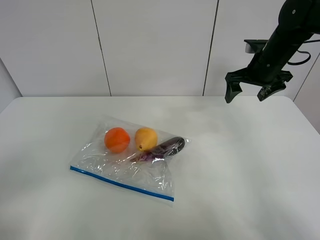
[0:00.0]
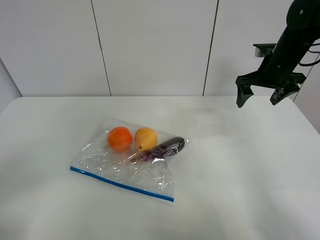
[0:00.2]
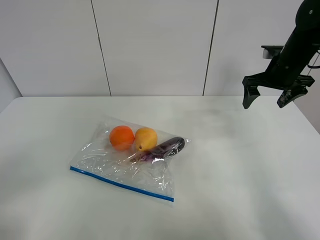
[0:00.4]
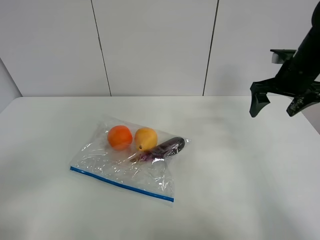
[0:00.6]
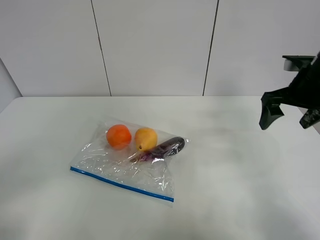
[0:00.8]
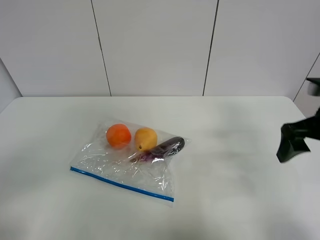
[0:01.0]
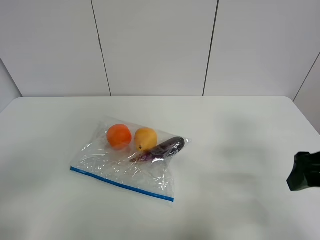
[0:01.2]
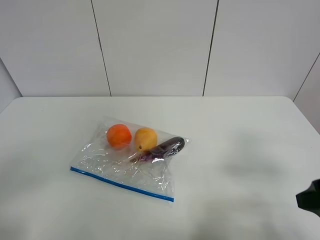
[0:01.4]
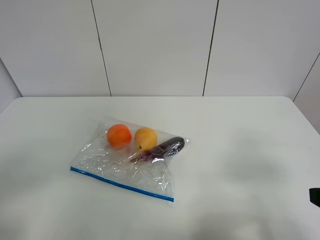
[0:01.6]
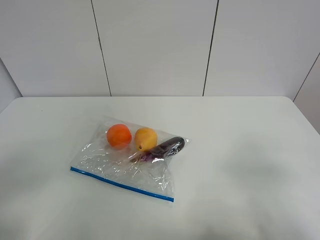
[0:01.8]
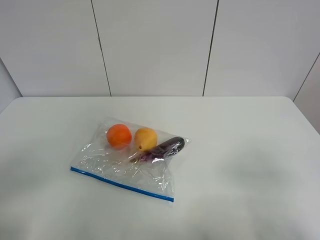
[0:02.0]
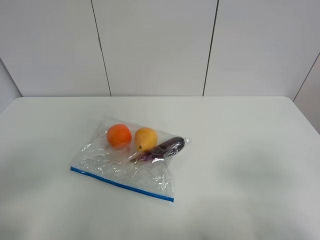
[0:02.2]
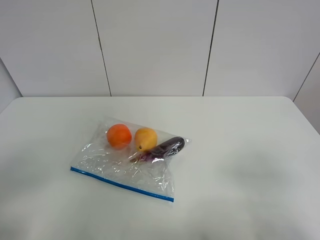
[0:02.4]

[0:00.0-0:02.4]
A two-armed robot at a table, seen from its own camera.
0:00.0 to 0:01.2: The right gripper travels backward by approximately 25 cm.
0:01.2 to 0:02.4: The right gripper goes approximately 15 cm backward.

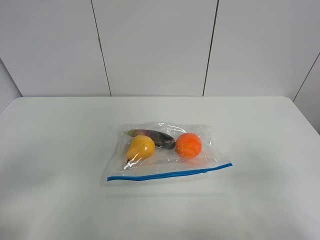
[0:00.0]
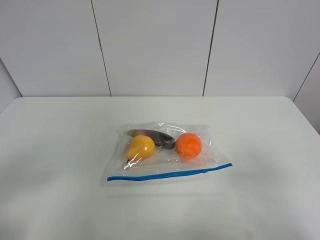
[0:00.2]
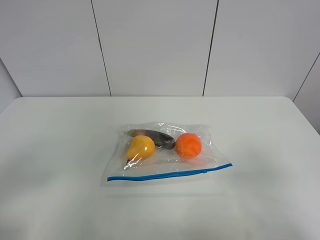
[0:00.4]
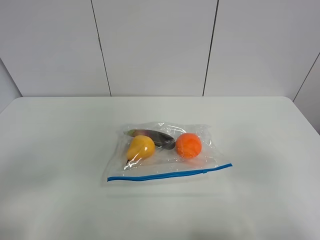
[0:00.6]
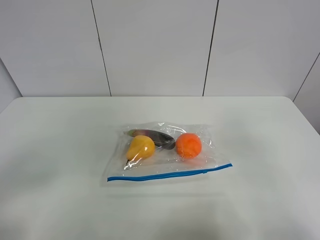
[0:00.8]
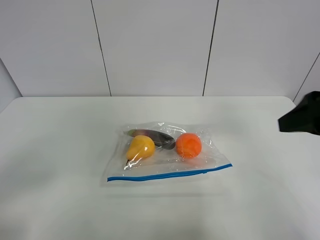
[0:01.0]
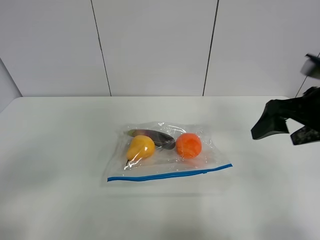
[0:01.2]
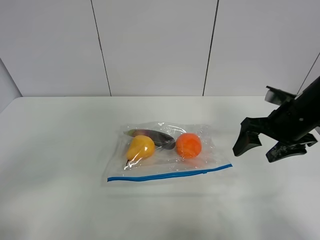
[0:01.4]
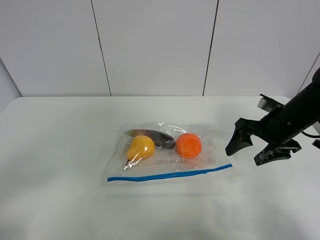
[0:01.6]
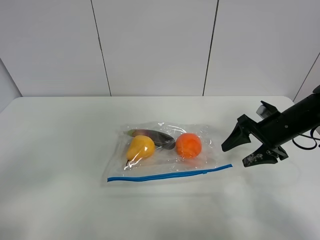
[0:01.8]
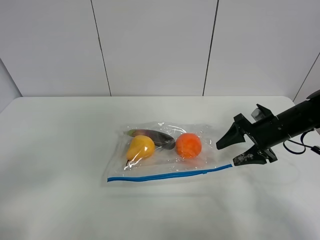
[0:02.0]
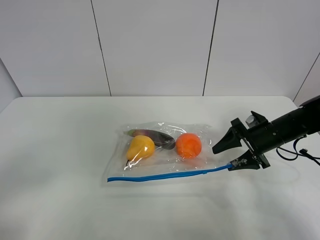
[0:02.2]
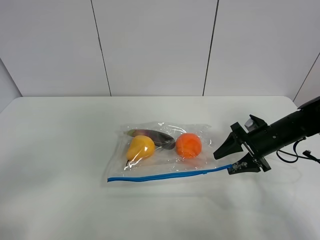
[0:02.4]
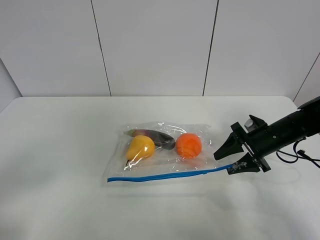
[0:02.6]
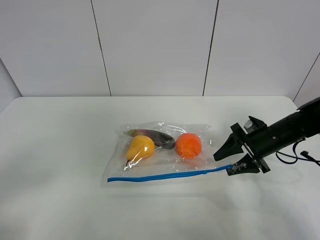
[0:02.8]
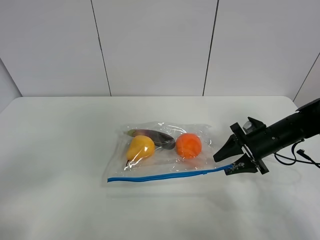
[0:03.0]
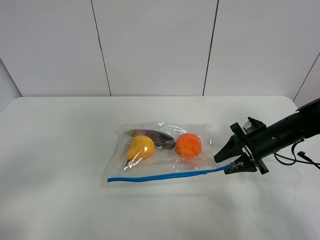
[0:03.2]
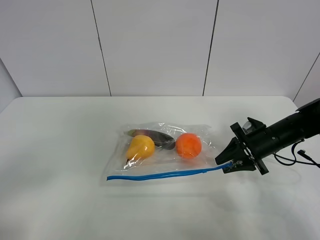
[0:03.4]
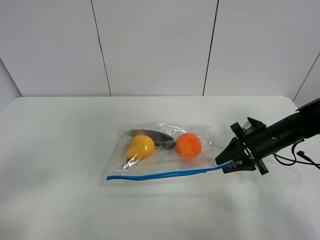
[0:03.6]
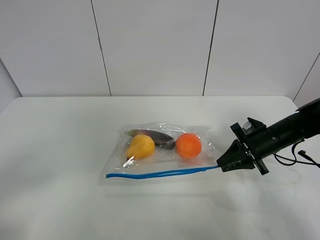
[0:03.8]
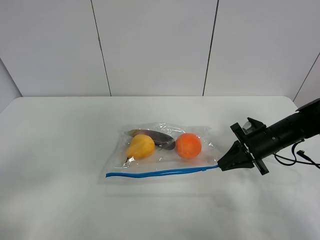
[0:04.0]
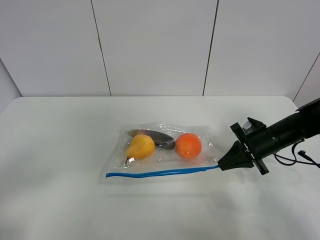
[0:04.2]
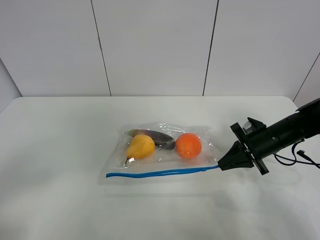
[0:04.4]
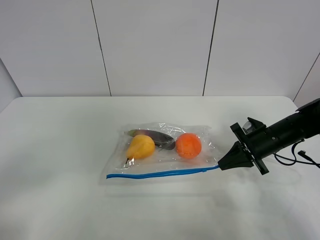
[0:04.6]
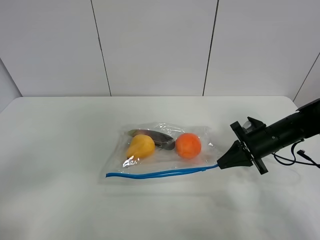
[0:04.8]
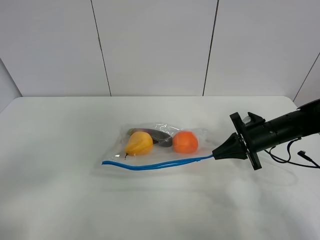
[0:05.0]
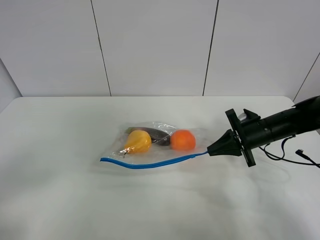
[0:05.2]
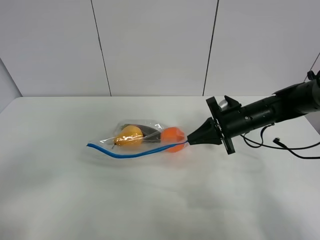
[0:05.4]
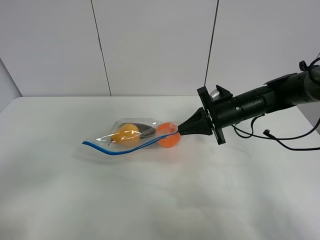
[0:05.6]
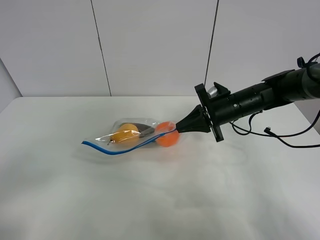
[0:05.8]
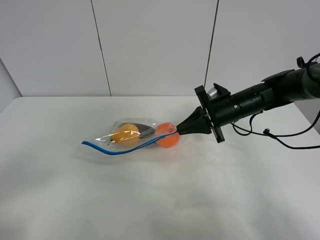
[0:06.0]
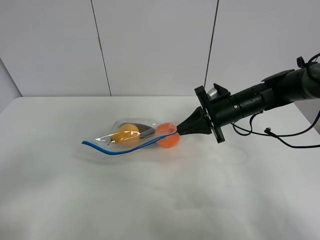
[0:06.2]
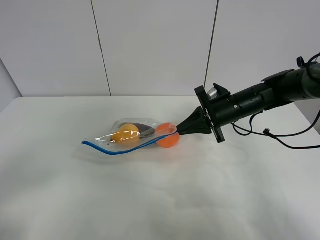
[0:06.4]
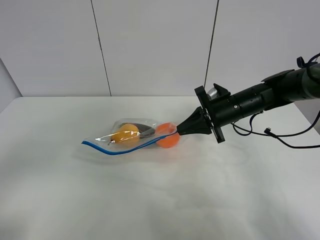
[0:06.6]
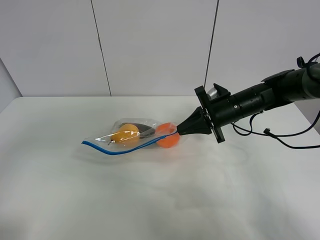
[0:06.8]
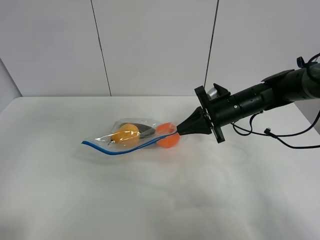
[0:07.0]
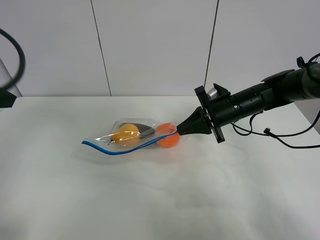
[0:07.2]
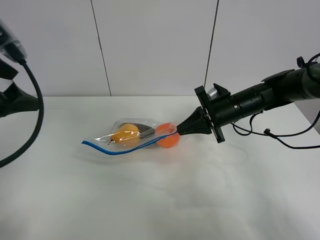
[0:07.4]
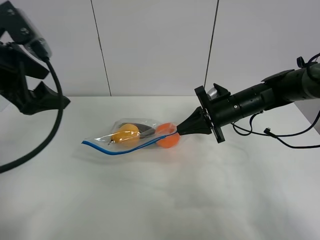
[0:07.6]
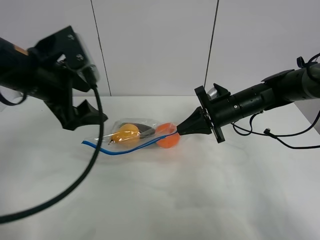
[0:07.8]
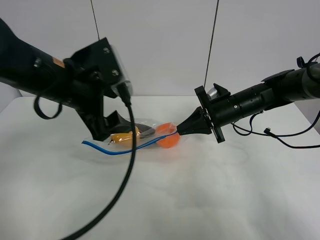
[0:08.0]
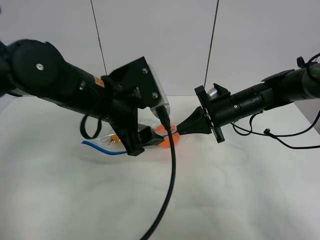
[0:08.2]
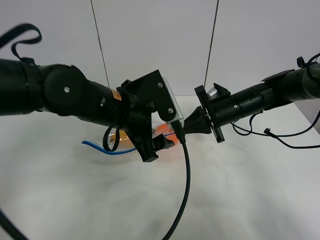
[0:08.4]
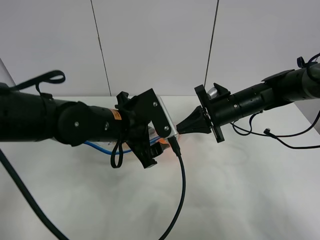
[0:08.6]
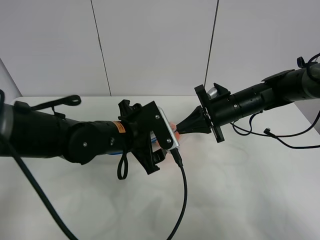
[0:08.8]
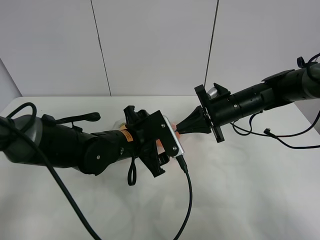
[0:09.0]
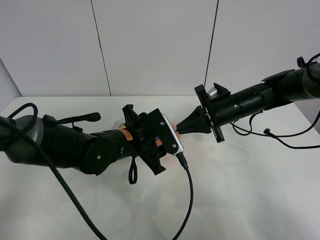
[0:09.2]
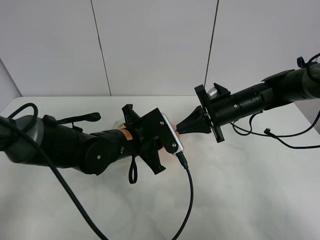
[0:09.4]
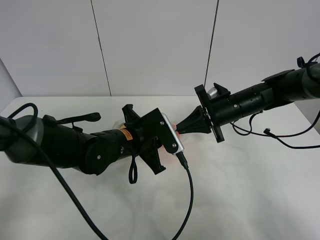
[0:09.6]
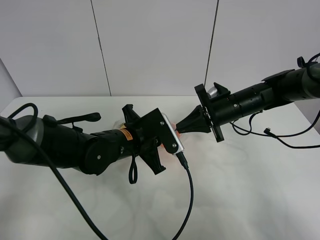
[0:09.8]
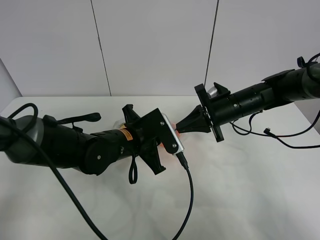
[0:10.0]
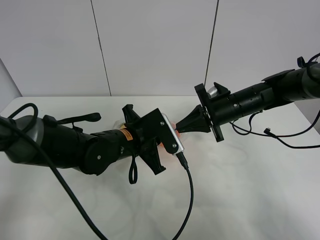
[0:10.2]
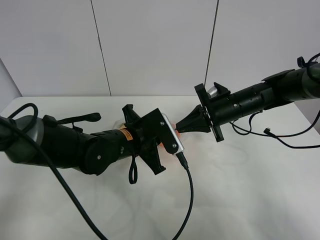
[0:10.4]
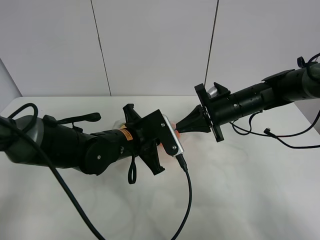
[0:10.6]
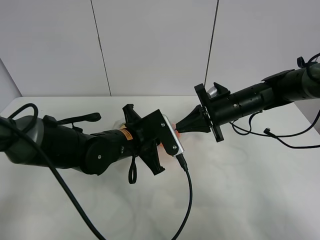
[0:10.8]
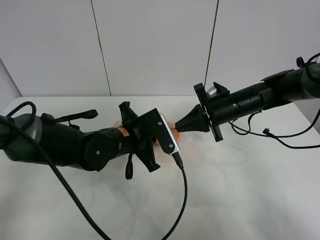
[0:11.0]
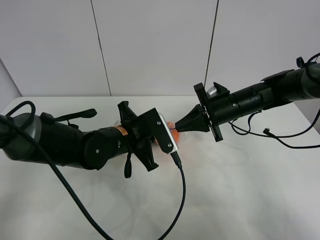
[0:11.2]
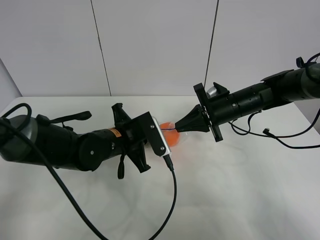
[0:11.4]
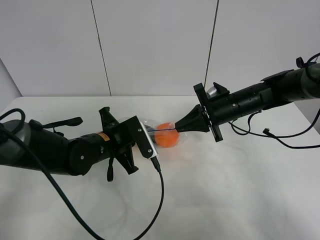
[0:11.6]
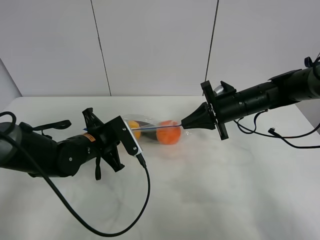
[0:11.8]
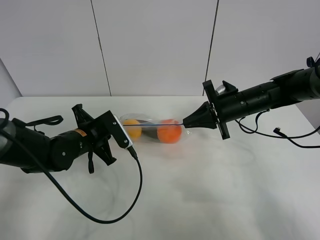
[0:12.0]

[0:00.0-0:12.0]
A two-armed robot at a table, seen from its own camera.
Step, 0:00.0 to 0:04.0: Grasp the fruit bag with right gripper.
Step, 0:04.2 to 0:06.0: Lift the fruit bag with your right gripper.
0:00.0 to 0:01.6: The right gripper is displaced forward by roughly 30 cm.
0:01.6 to 0:03.0: The right gripper travels downward by some 10 cm.
0:03.0 to 0:04.4: The right gripper closes its fingers.
0:04.4 to 0:06.0: The right gripper heads to the left and upward, covering roughly 10 cm.
0:06.0 to 0:07.6: The left gripper shifts roughly 25 cm forward.
0:07.6 to 0:09.0: The left gripper moves downward and to the right, about 25 cm.
0:09.0 to 0:10.4: The left gripper closes.
0:10.4 to 0:12.0: The left gripper is displaced to the left by roughly 10 cm.

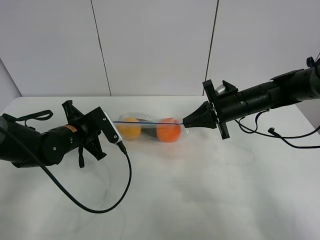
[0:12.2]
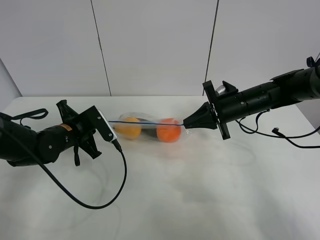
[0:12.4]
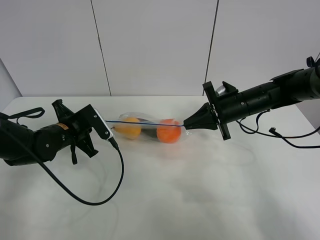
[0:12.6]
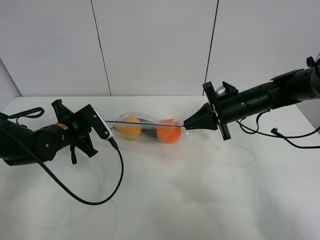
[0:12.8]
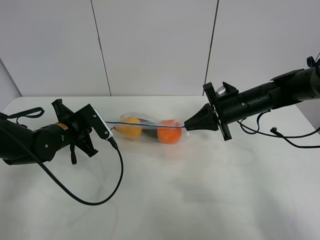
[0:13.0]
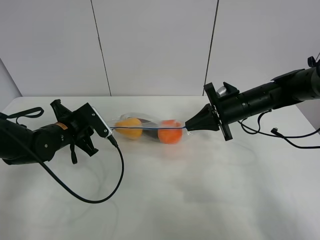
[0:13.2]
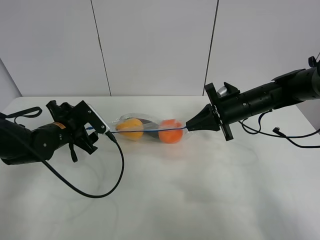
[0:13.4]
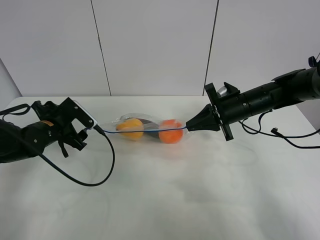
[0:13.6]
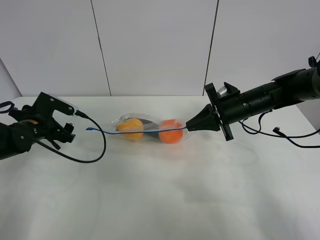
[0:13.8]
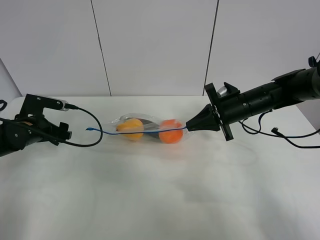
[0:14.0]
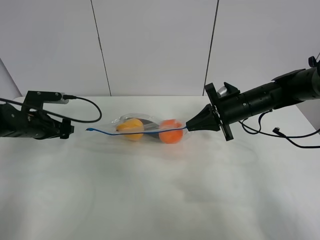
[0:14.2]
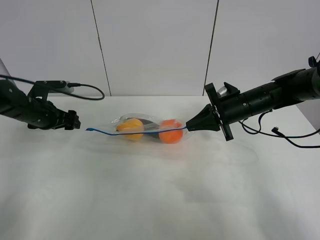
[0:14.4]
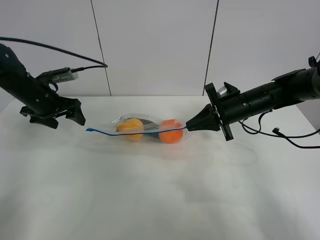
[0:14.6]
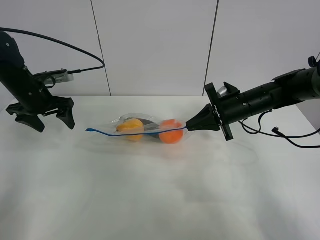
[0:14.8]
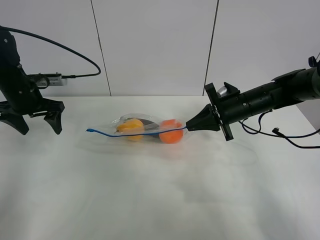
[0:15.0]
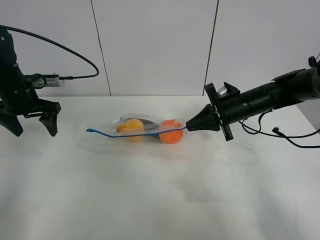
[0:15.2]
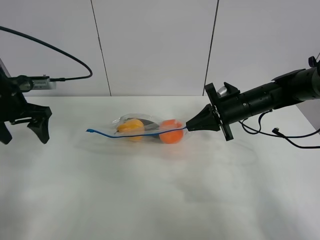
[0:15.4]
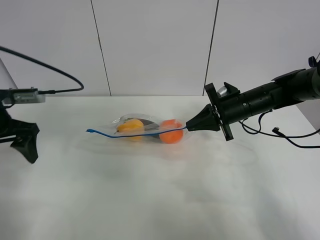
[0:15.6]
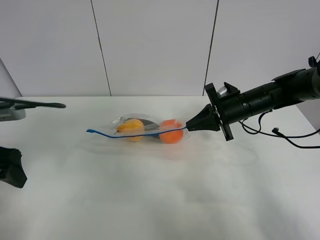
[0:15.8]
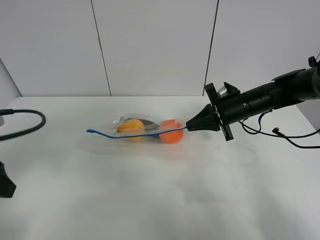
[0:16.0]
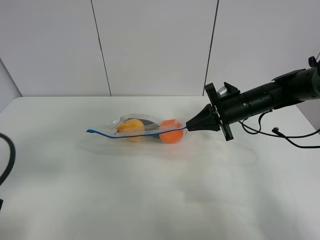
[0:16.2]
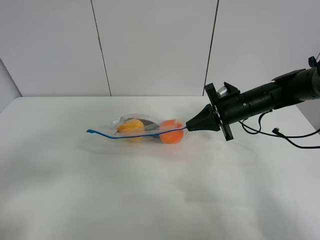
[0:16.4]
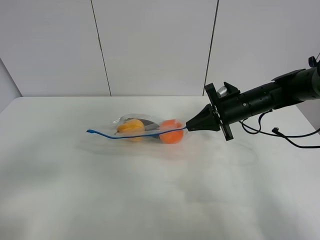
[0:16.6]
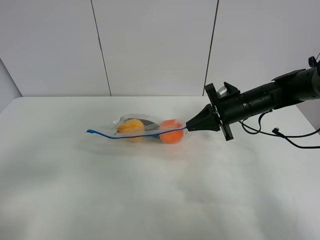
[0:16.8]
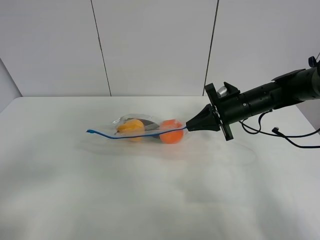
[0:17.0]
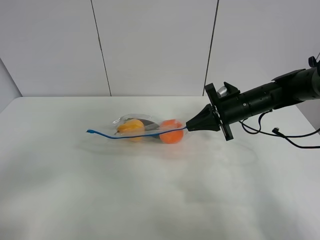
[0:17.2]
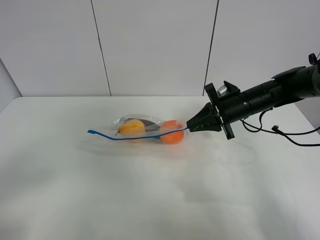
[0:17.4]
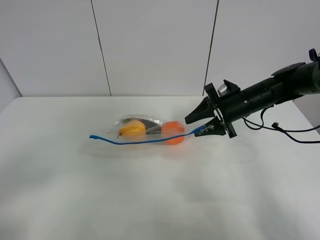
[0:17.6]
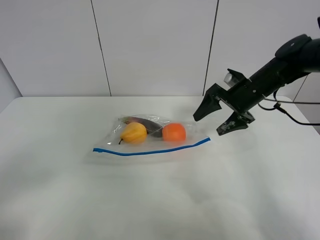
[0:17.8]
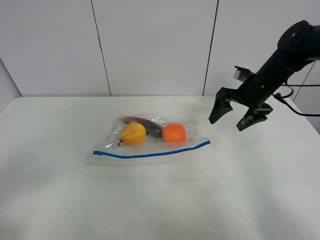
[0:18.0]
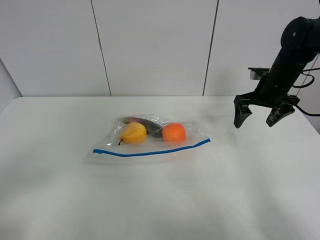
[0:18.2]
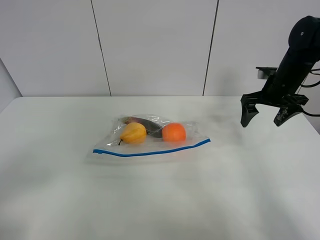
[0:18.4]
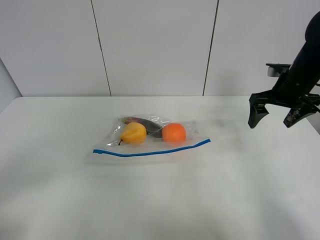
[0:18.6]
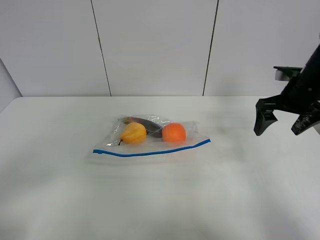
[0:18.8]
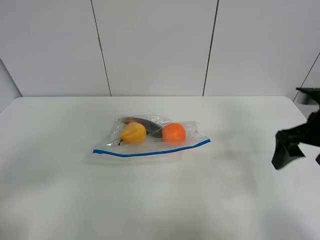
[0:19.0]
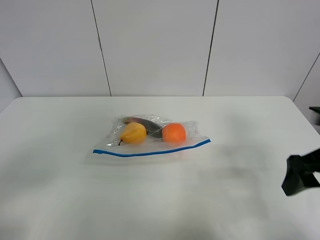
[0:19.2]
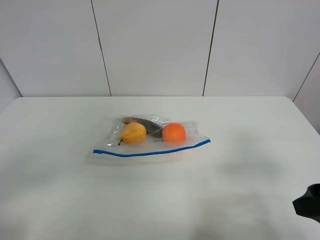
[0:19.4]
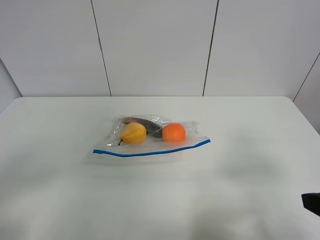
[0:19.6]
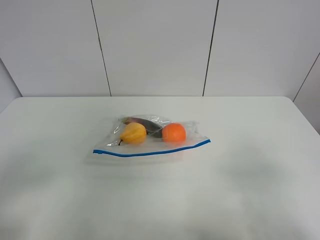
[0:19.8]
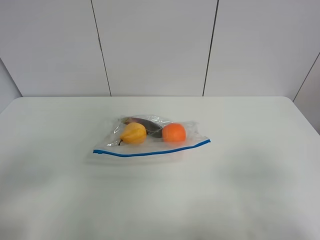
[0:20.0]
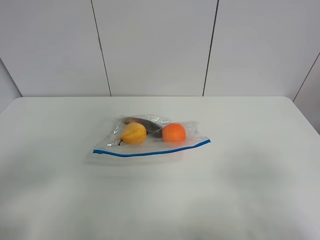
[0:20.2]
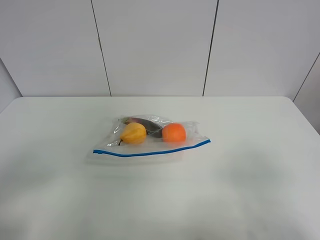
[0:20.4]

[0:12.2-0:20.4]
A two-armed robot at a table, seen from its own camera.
0:12.2 to 0:13.8: The left gripper goes some 10 cm to the left, and opens its fingers.
0:13.8 to 0:15.4: The left gripper heads upward, covering about 10 cm.
0:15.4 to 0:17.2: The left gripper moves backward, approximately 30 cm.
0:17.2 to 0:18.8: The right gripper shifts about 15 cm to the right, upward and backward, and opens.
0:18.8 to 0:20.4: The right gripper is displaced backward by some 30 cm.
